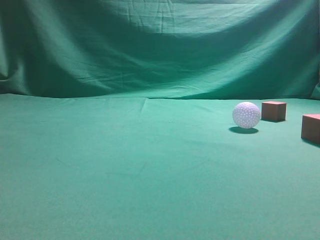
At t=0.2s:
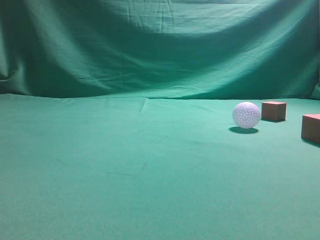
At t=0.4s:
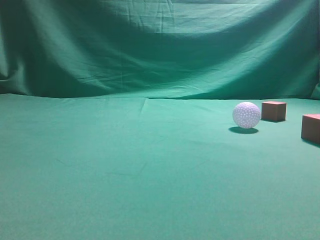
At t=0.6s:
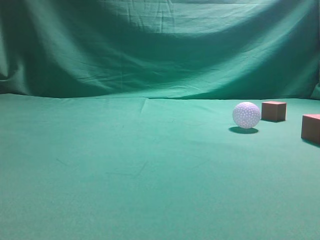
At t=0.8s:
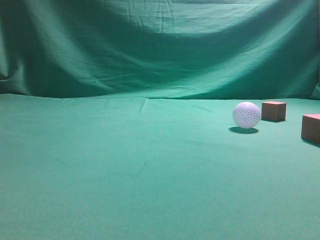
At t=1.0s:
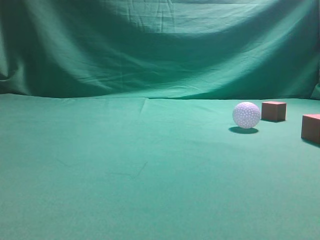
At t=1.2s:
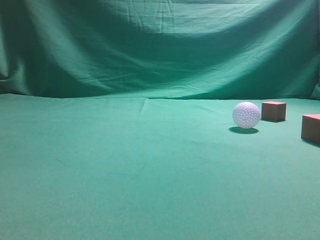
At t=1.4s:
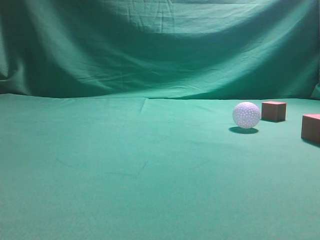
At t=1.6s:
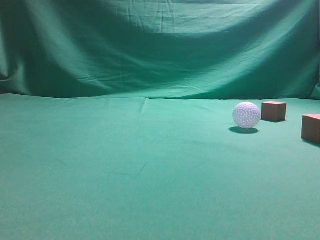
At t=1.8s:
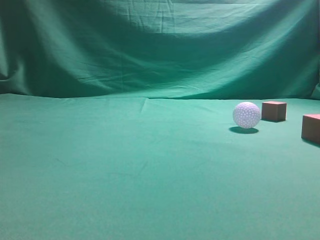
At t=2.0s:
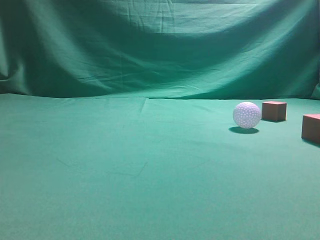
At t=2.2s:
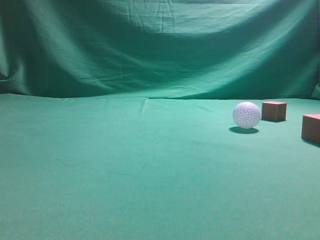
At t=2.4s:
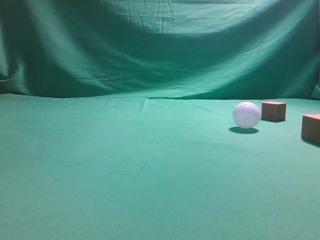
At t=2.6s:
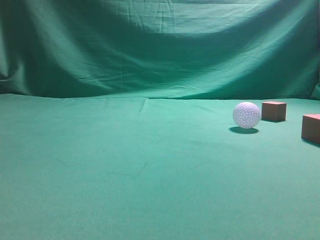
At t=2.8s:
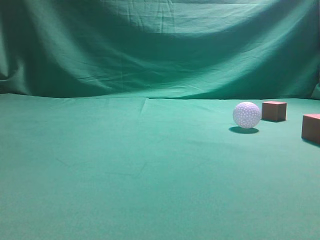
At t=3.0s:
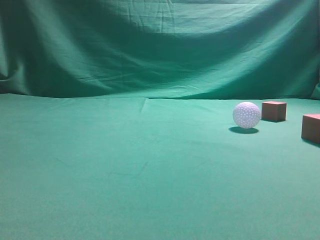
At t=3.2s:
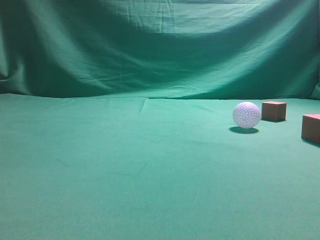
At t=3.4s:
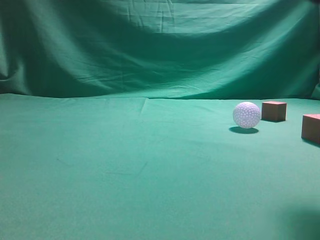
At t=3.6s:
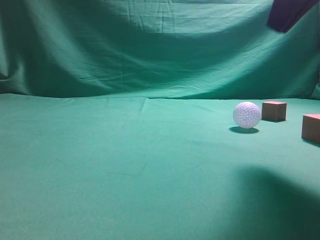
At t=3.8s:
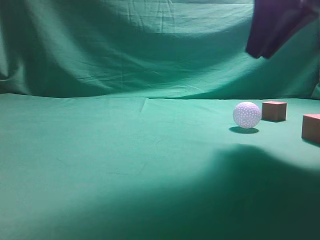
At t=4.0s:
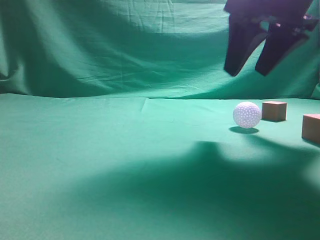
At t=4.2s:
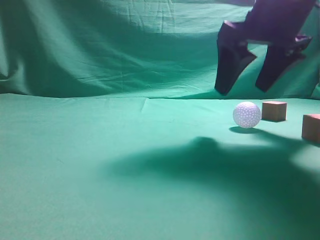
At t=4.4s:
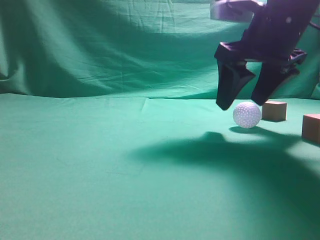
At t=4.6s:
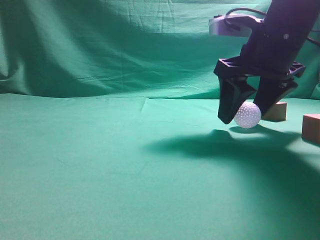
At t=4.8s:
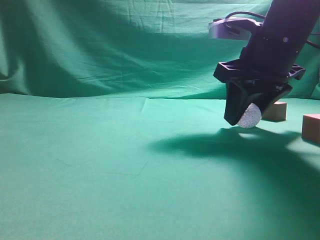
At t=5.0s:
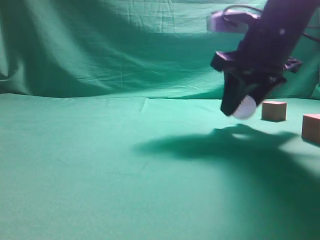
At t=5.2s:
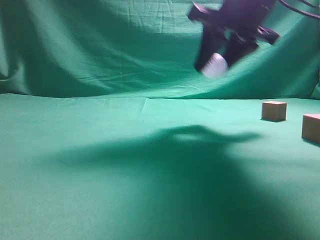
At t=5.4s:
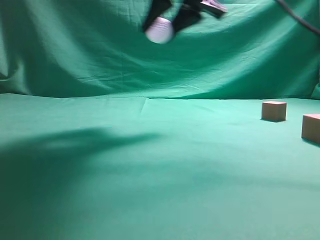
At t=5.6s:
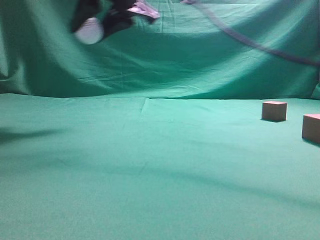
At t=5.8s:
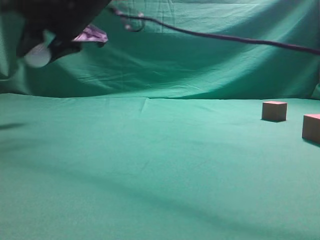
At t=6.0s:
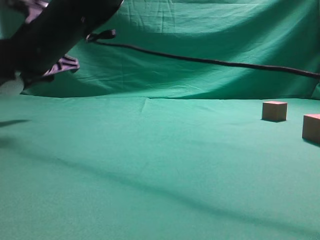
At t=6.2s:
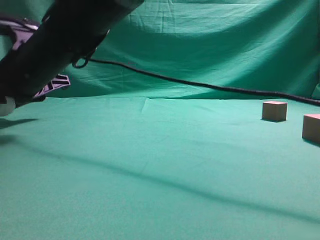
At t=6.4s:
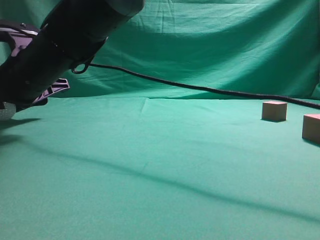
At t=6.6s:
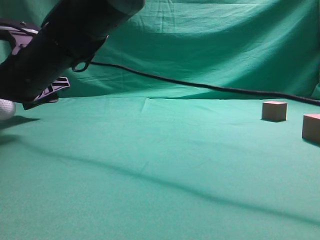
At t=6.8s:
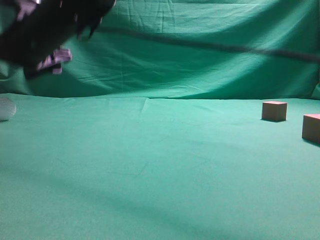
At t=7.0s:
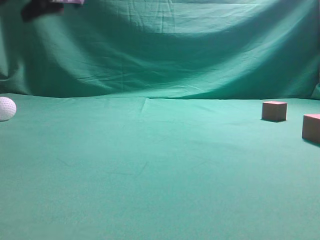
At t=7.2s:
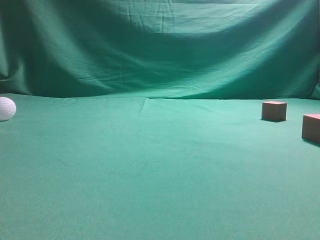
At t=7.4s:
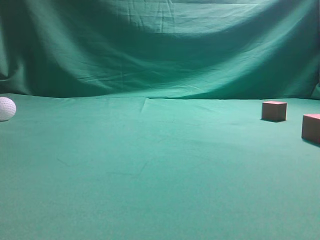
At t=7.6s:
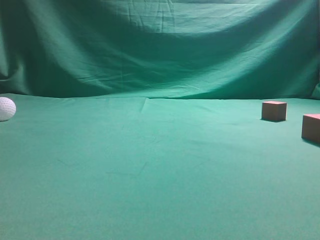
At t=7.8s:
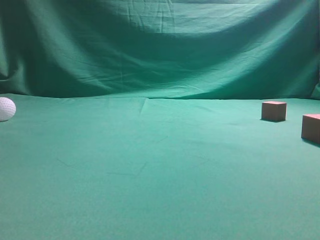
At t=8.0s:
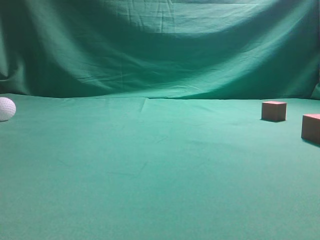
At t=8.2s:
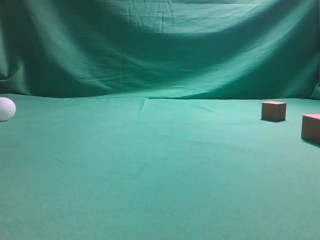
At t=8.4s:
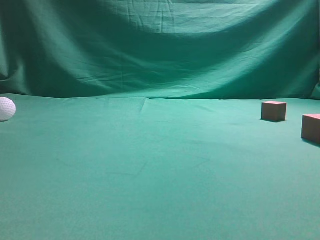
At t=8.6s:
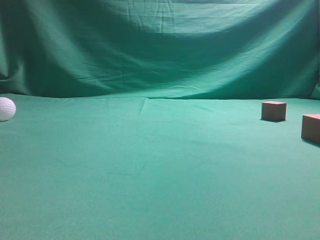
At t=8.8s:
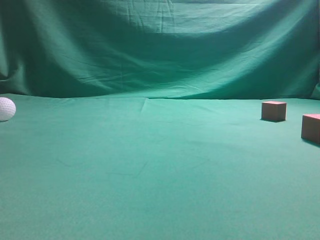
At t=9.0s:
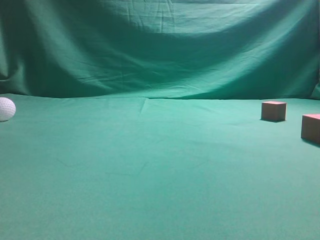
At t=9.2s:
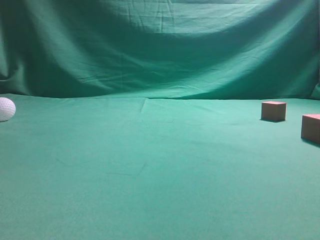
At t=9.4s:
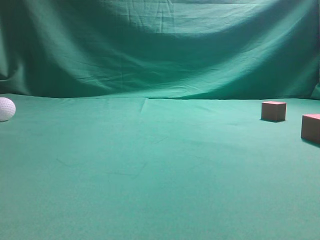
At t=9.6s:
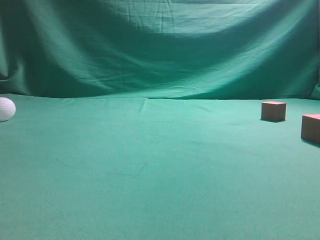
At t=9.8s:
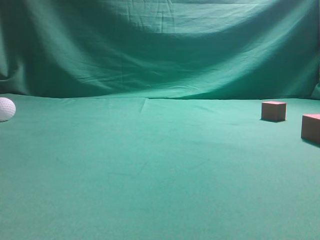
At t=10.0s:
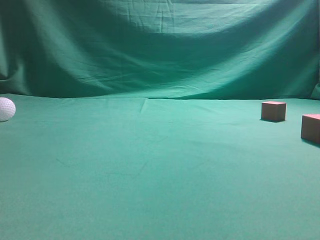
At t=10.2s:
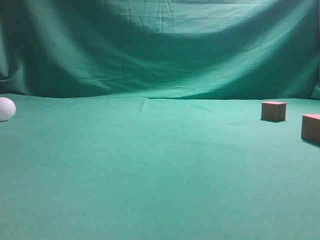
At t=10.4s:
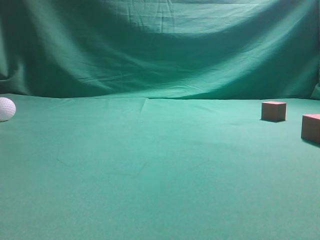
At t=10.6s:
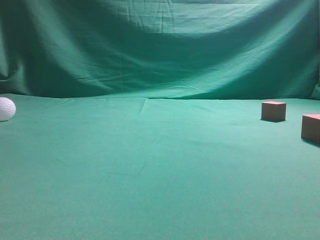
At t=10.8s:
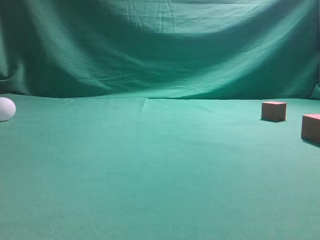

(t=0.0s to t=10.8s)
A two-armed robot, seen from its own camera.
Step, t=0.0s - t=5.0s: Grasp the spherical object on the right side.
t=3.0s - t=4.6s: The right gripper is displaced forward, downward and to the left by some 25 cm, and opens up.
t=4.6s - t=6.2s: The right gripper travels to the left by some 35 cm, and closes its fingers.
t=6.2s - t=7.8s: The right gripper is displaced upward and to the right by some 40 cm, and closes its fingers.
